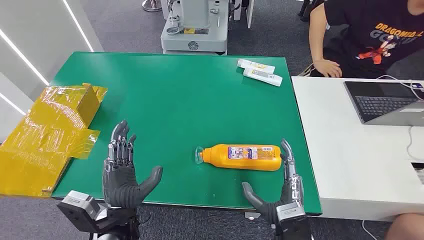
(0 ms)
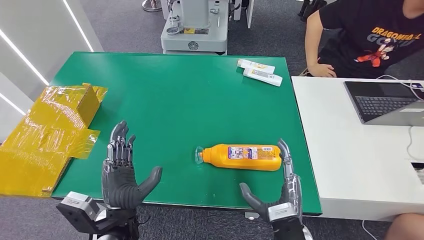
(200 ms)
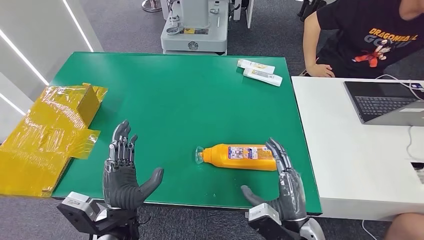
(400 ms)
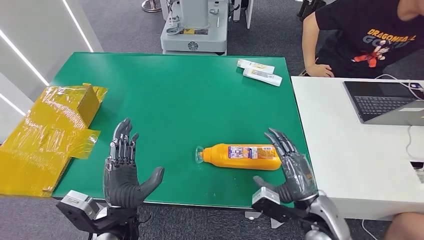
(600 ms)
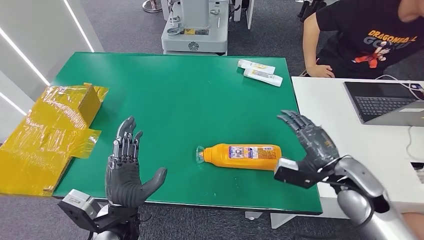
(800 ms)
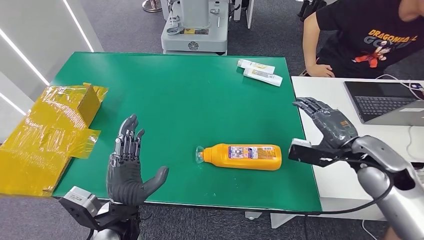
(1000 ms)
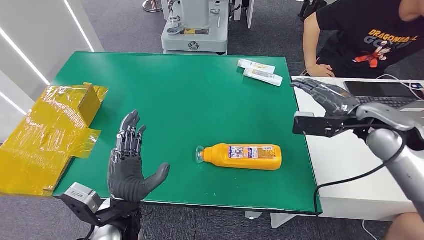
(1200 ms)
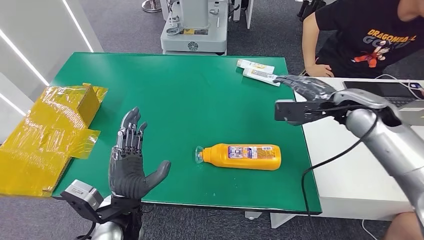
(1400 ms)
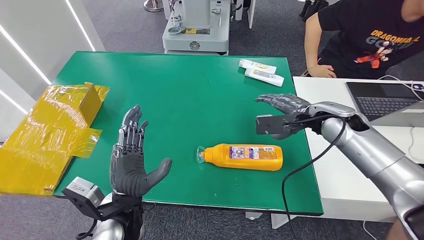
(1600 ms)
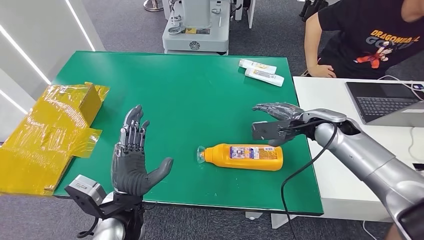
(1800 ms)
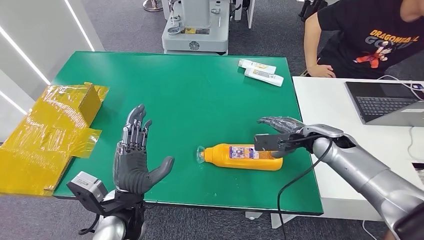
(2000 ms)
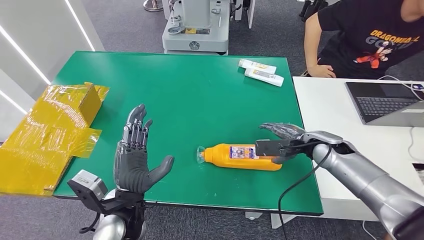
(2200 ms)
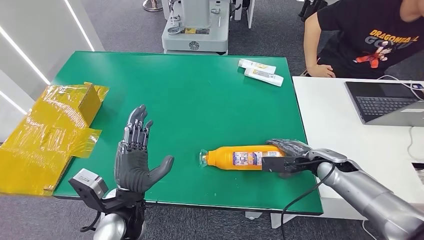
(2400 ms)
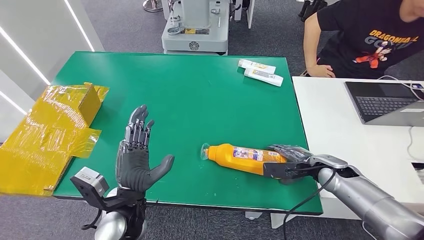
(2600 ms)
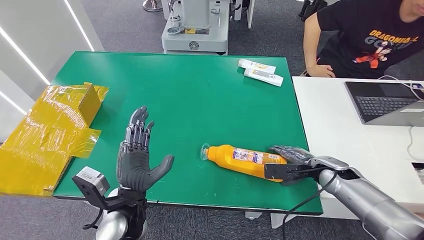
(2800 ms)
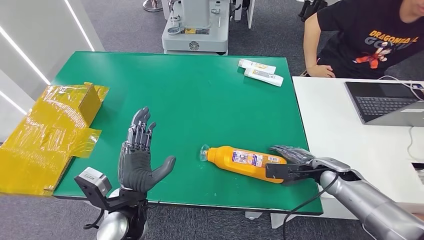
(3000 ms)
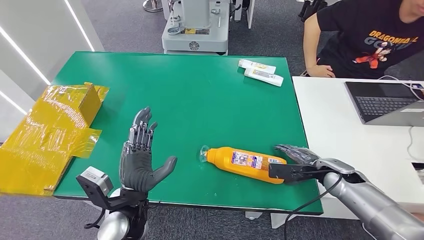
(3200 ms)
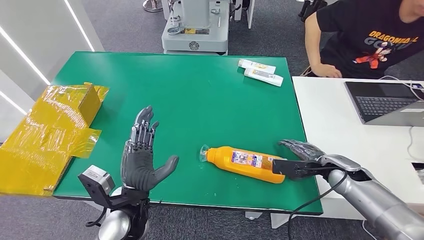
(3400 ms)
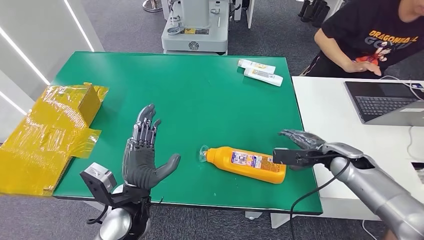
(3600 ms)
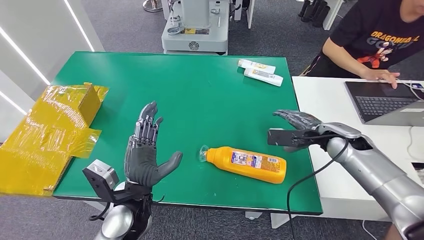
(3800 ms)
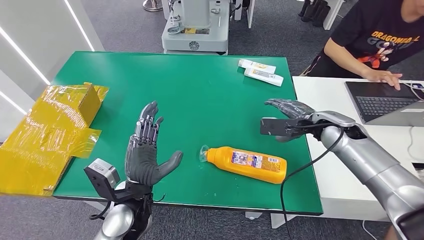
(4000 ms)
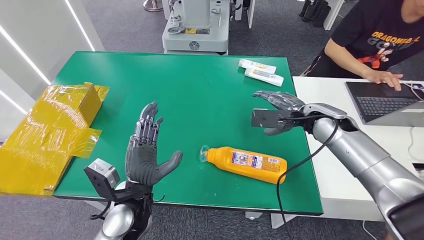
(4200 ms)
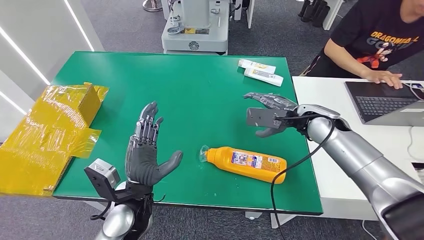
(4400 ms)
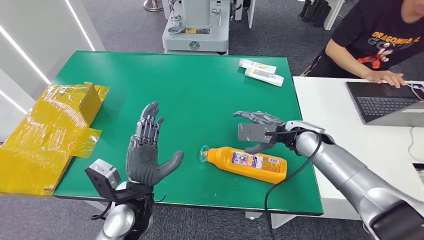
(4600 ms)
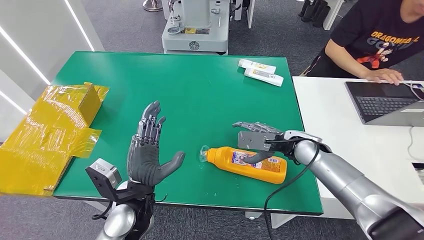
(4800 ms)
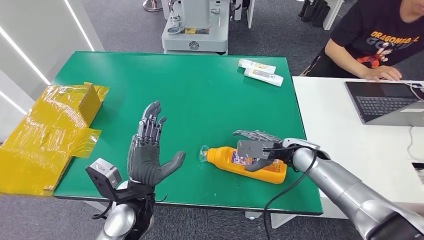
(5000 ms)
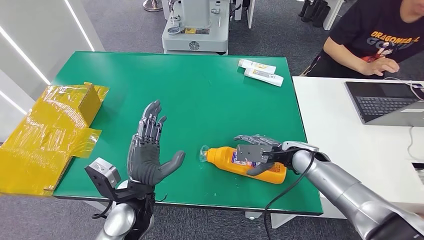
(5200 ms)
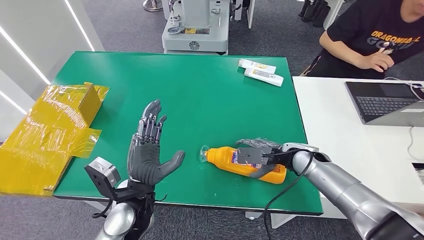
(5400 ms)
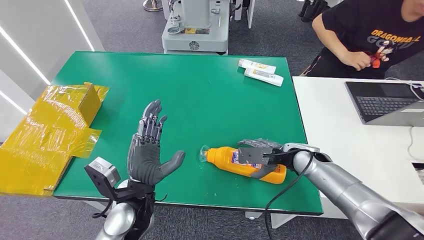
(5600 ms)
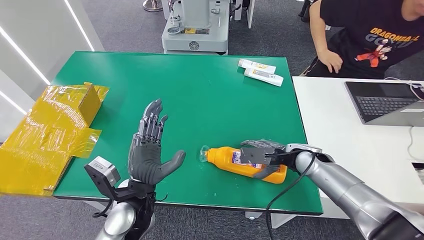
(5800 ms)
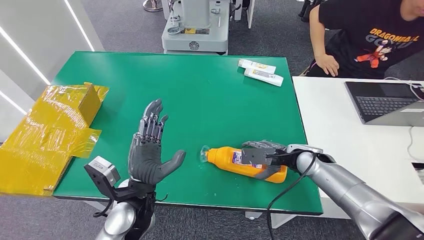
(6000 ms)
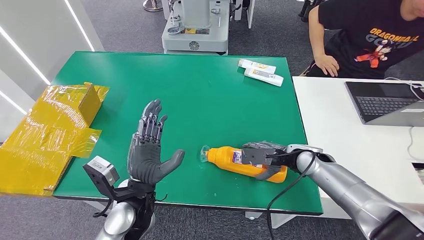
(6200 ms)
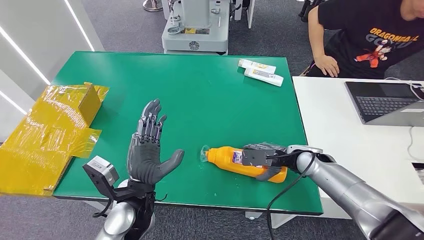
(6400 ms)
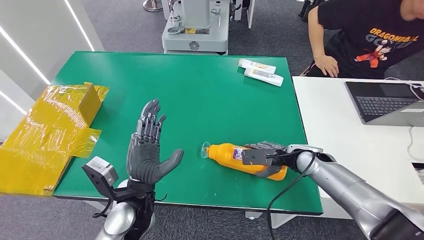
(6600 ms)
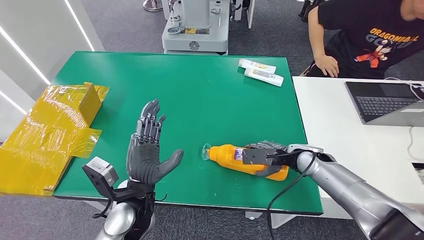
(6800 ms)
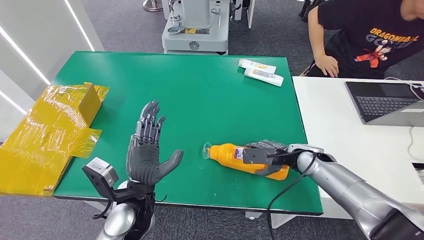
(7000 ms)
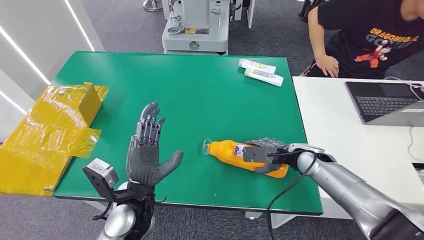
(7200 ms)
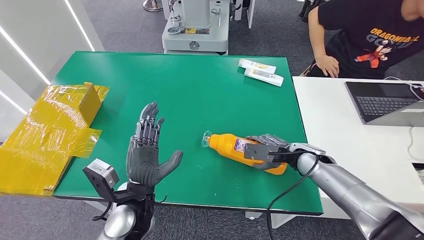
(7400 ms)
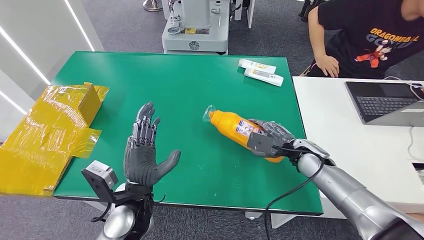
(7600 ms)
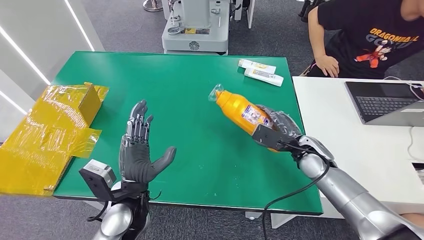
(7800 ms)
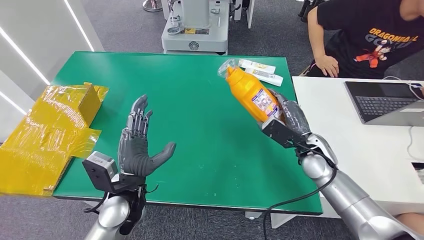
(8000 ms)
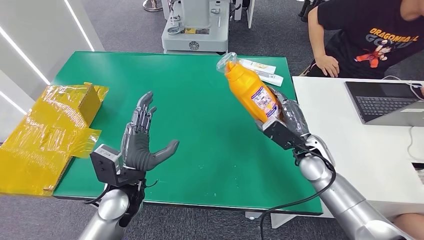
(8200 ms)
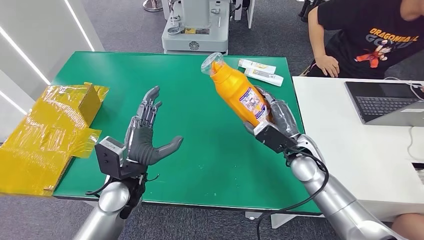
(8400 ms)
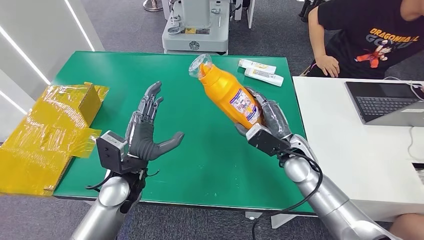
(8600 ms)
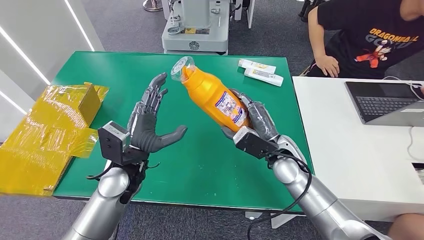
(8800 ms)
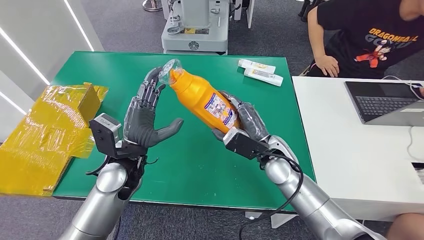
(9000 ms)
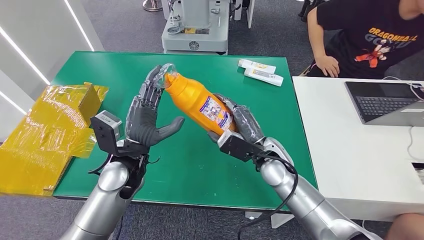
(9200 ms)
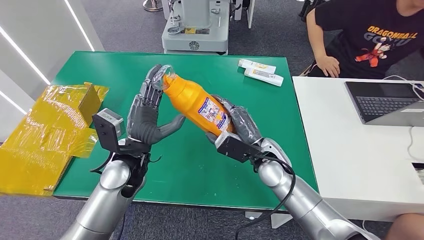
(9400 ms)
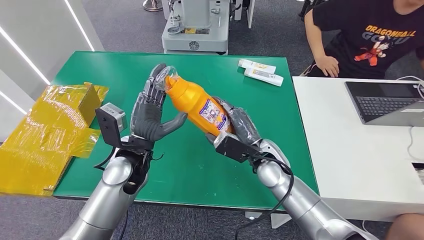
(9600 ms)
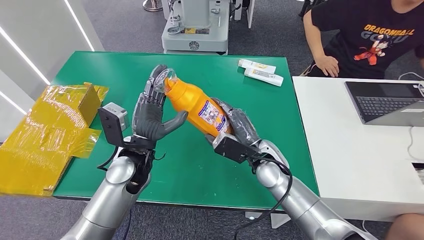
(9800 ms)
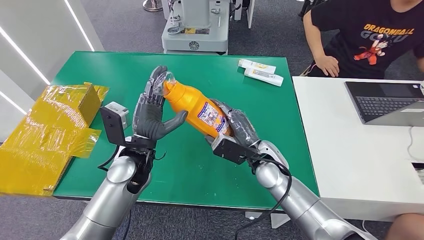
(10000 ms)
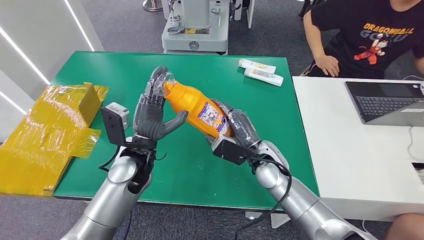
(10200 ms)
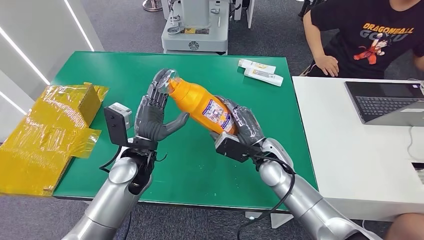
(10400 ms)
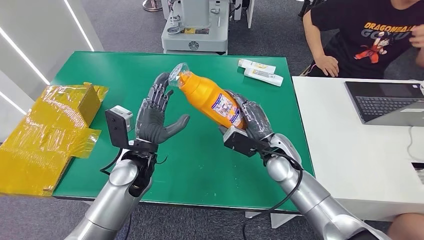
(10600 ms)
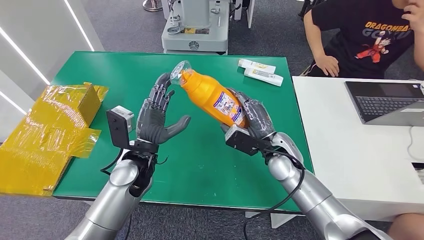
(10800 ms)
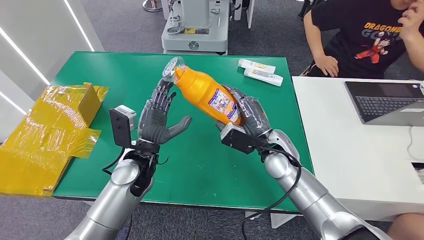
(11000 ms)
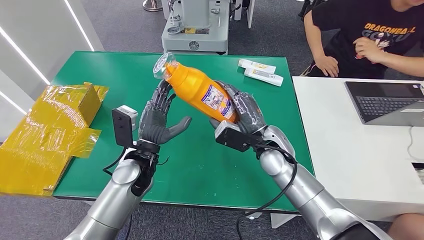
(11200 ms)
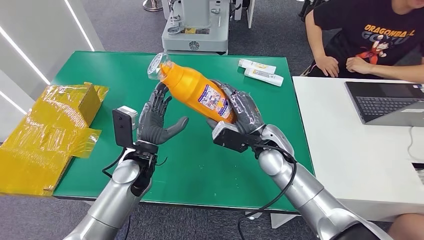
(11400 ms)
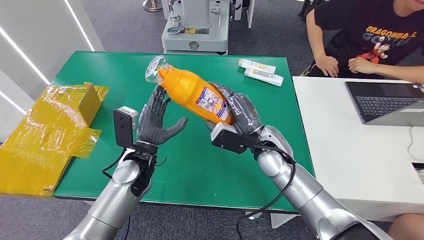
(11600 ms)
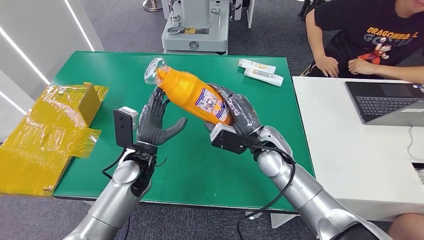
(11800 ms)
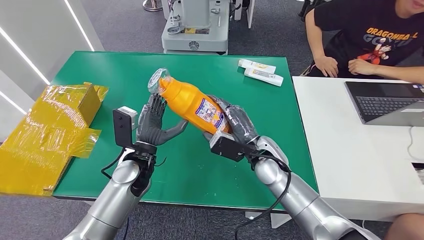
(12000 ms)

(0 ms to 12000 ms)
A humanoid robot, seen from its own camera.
Step, 0 ms - 8200 ms: Pick up the bottle from the table.
1600 ms - 3000 ms: The right hand moves downward and backward, some 15 cm.
3000 ms - 4400 ms: The right hand heads upward, to the left and forward, covering approximately 20 cm.
4400 ms - 6000 ms: The right hand moves downward, approximately 10 cm.
9000 ms - 12000 ms: The hands make only small movements.

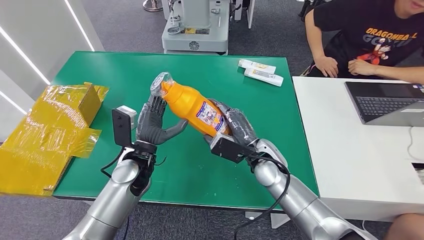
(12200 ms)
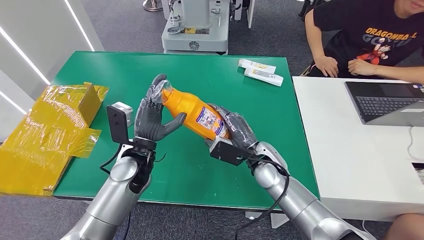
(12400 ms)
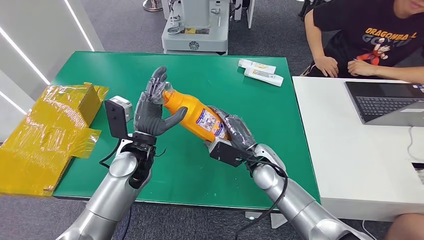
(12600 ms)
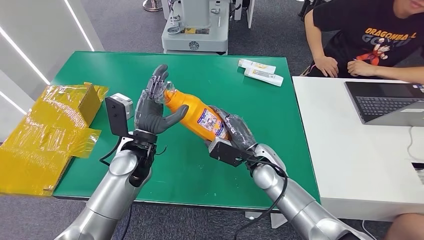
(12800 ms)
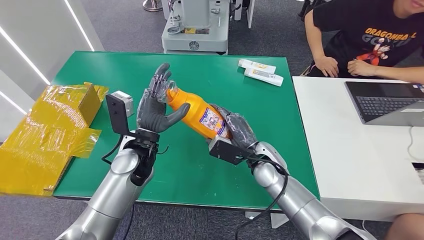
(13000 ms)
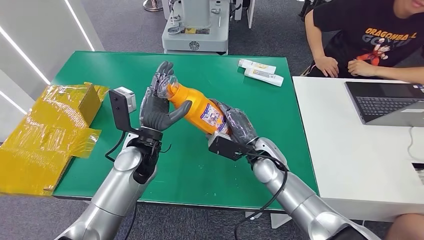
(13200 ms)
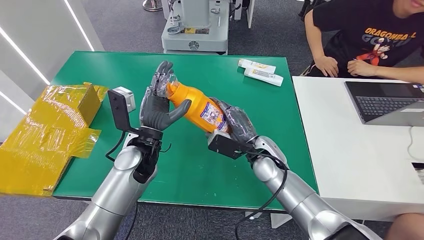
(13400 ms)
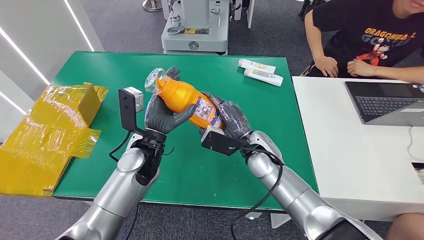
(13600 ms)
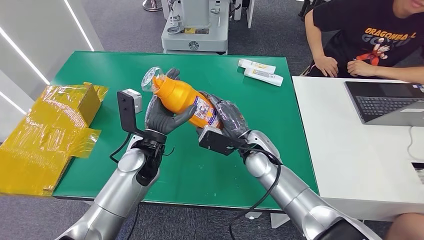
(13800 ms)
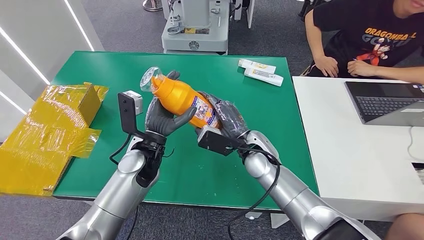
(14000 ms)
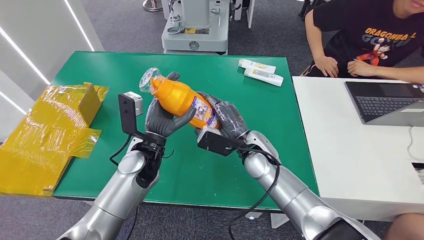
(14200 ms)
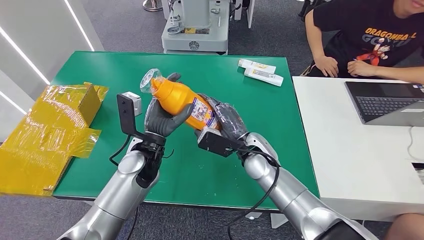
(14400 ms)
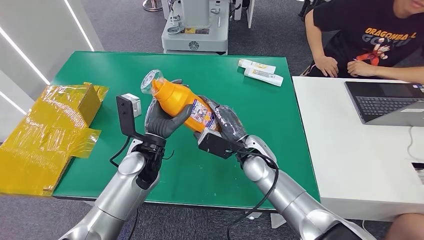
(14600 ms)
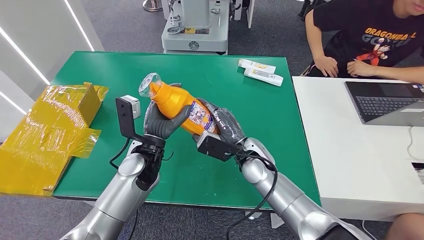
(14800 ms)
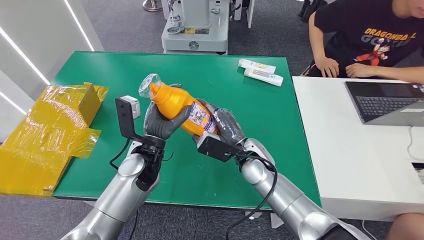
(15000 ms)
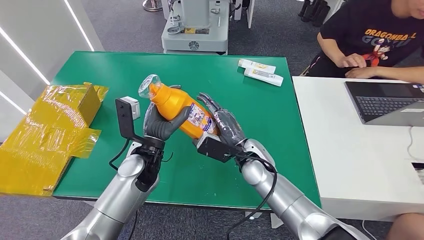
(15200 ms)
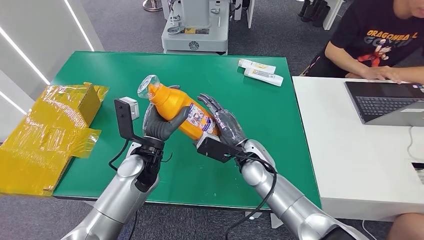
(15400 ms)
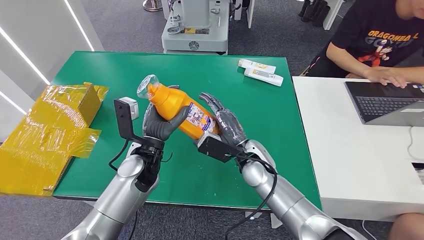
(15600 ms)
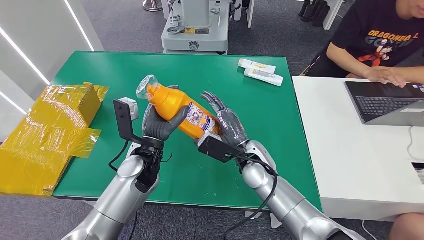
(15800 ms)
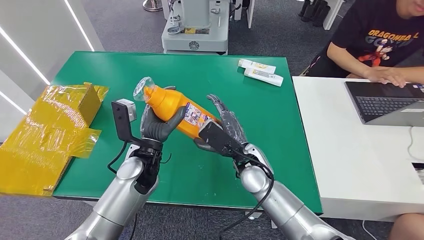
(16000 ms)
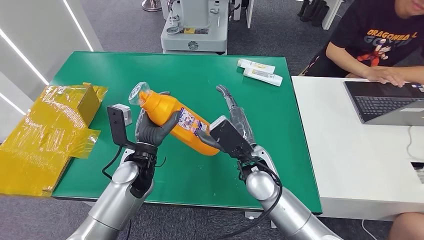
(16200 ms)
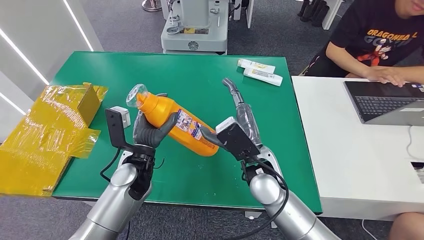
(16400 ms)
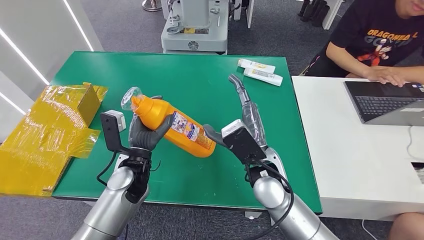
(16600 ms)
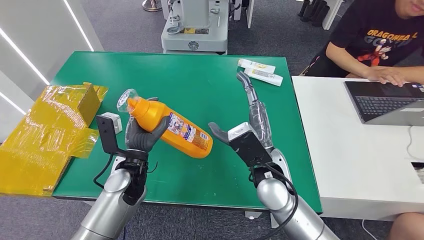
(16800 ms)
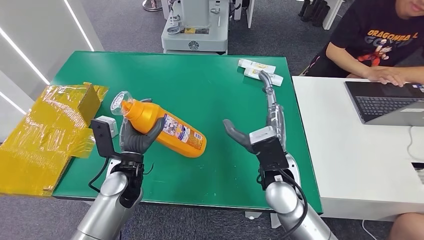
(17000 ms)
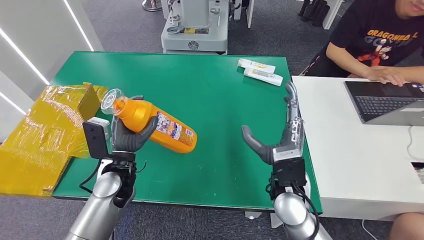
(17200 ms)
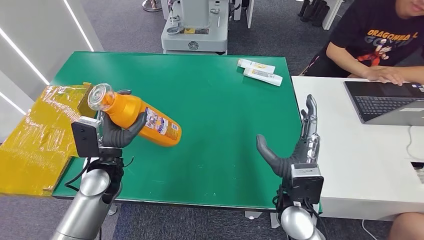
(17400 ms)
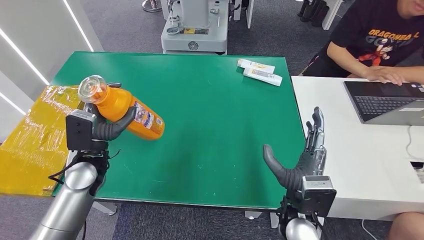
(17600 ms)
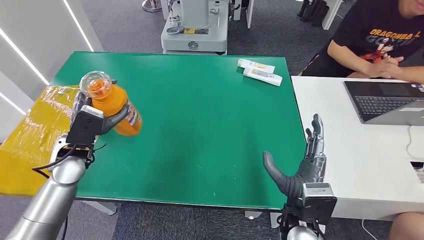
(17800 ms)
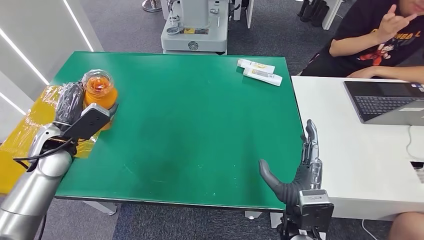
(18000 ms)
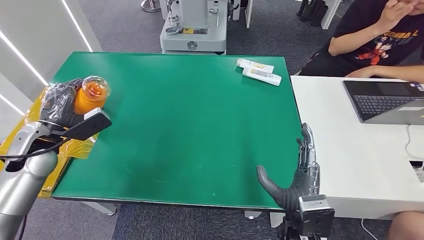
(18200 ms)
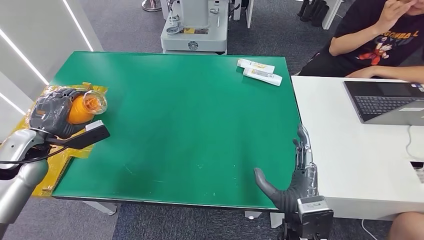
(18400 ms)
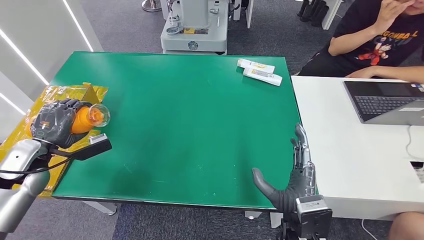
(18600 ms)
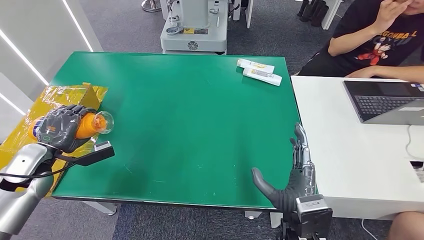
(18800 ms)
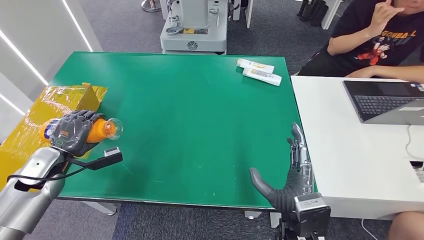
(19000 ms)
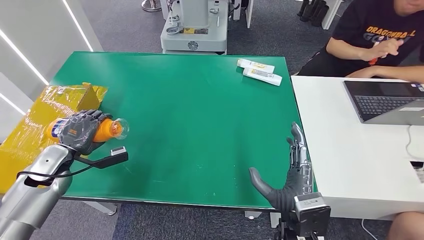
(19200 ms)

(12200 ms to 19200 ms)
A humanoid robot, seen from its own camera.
12200 ms - 15000 ms: There are only small adjustments of the hands.
15000 ms - 16400 ms: The right hand goes approximately 5 cm backward.
17800 ms - 19200 ms: The left hand shifts about 10 cm to the left and downward.
